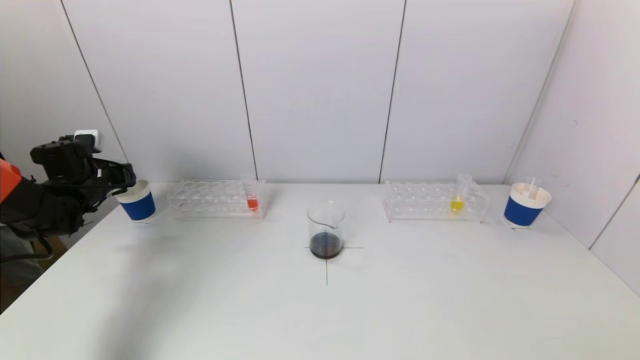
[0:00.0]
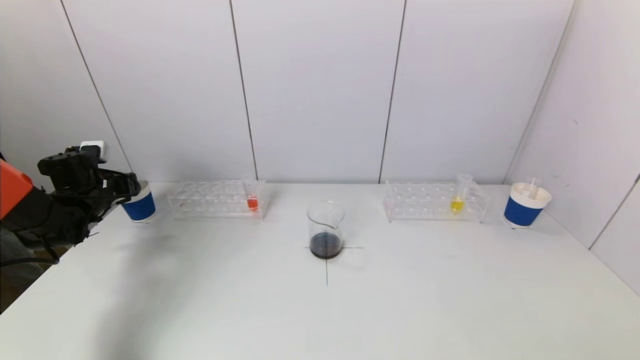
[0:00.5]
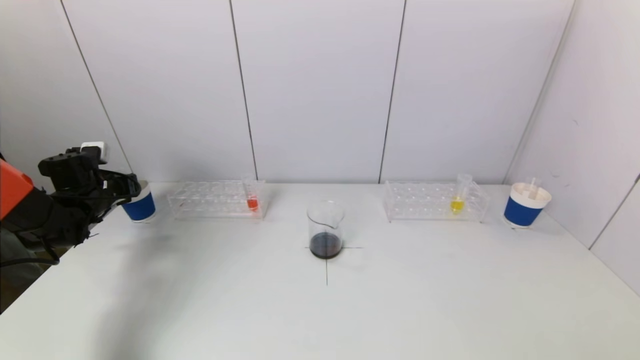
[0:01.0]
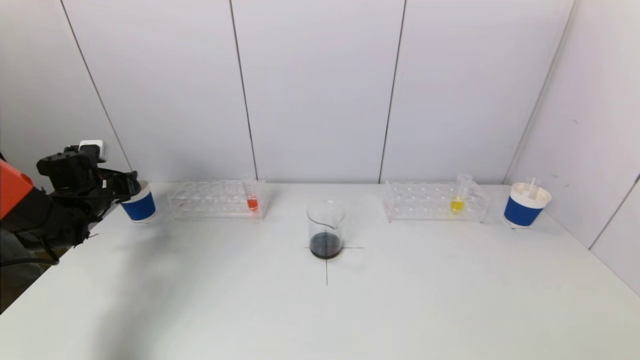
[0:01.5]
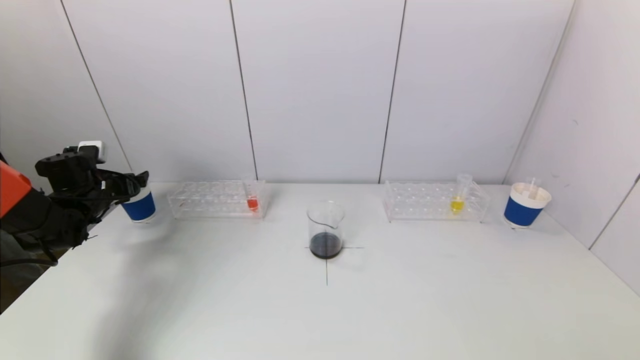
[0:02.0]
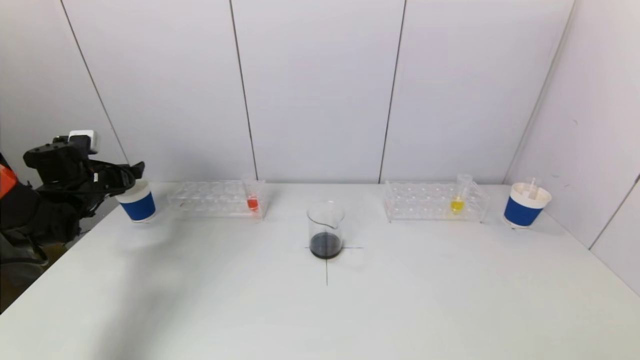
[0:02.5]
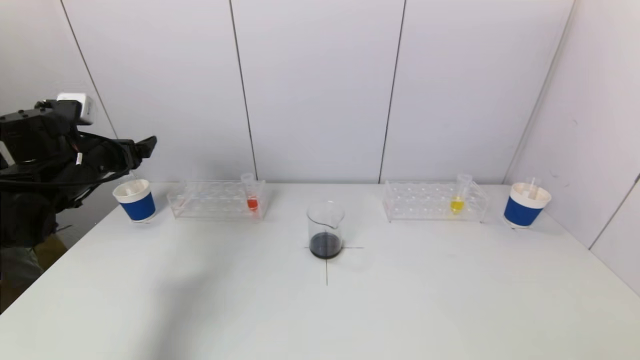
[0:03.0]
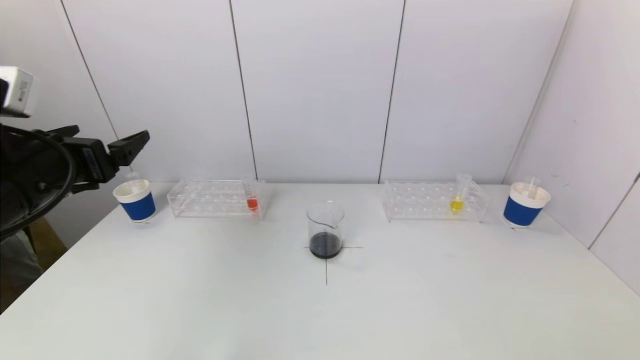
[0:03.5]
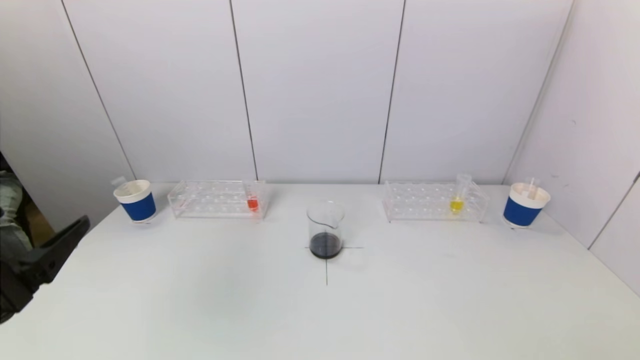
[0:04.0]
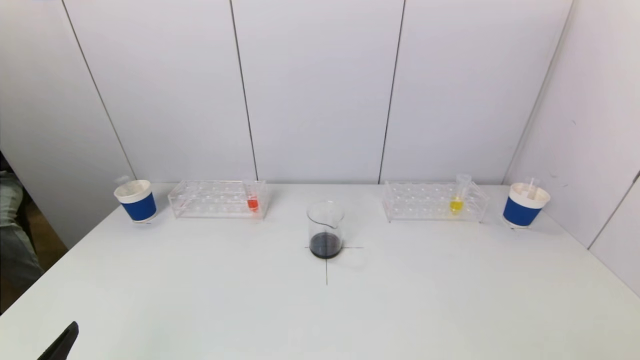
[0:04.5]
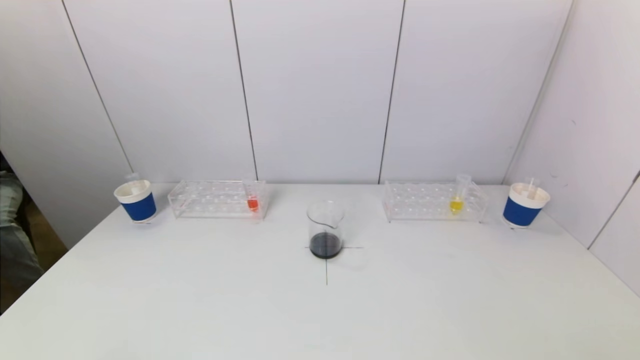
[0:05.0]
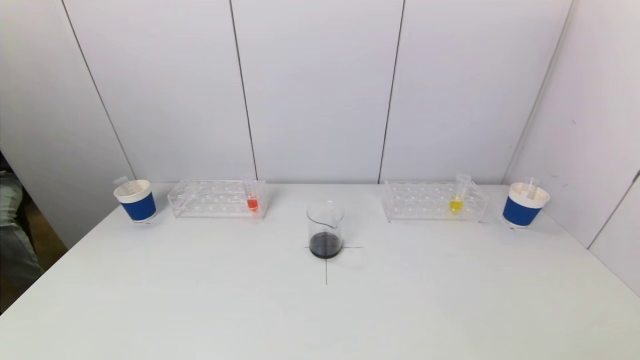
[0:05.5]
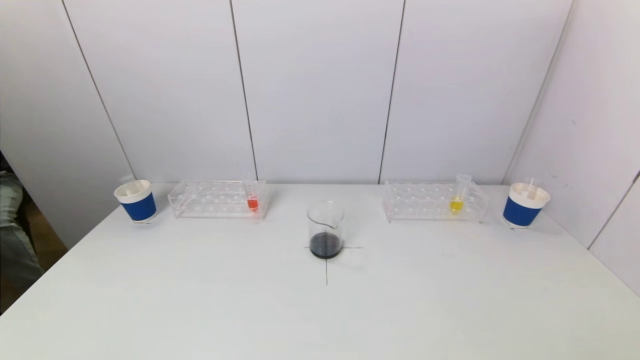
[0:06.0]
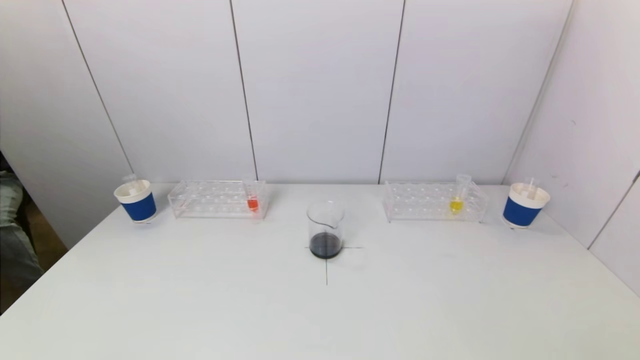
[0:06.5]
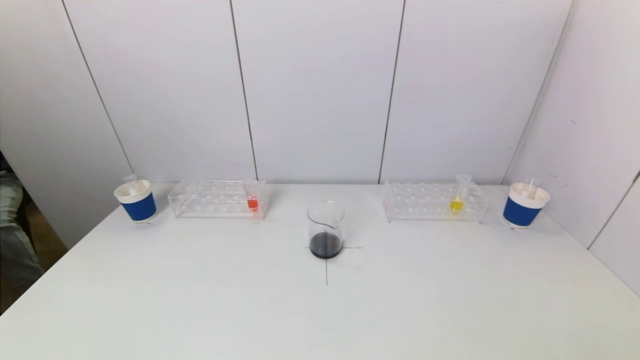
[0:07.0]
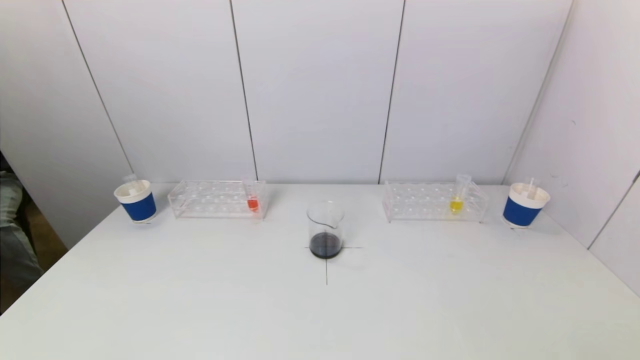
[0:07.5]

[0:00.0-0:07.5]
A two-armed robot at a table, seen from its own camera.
Task of the whole recording: pick up a test tube with pigment on left test tube rack and a test tube with pigment on right test tube rack by grippers and pour them into the beaker.
Step, 0:00.0 to 0:02.0: Place the test tube into the paper cup with the left gripper.
0:00.0 to 0:02.0: The left gripper opens its fingers.
0:02.0 to 0:04.0: The left gripper moves backward and to the right, about 35 cm.
0:04.0 to 0:05.5: The left gripper travels downward and backward by some 15 cm.
0:05.5 to 0:07.5: Both grippers stay put.
